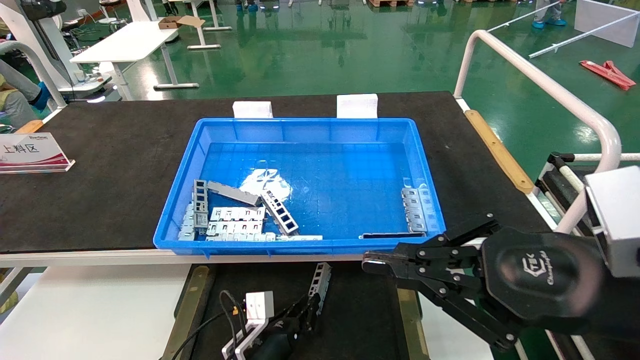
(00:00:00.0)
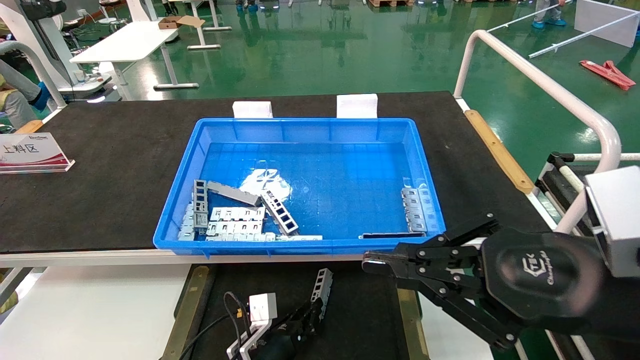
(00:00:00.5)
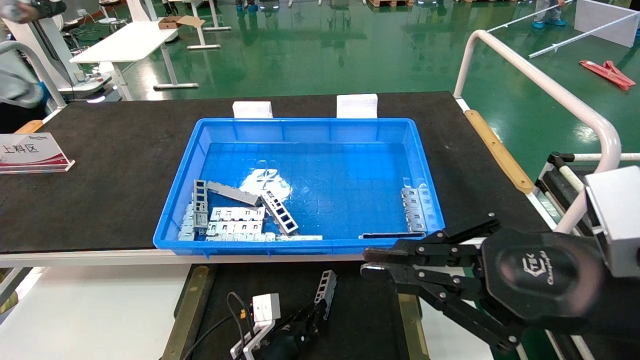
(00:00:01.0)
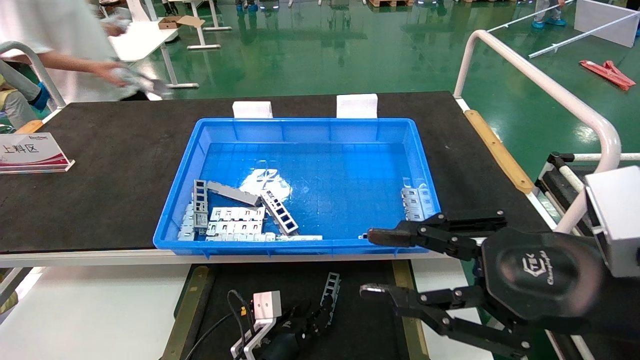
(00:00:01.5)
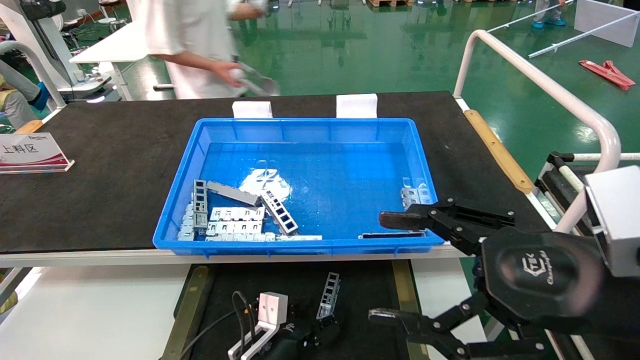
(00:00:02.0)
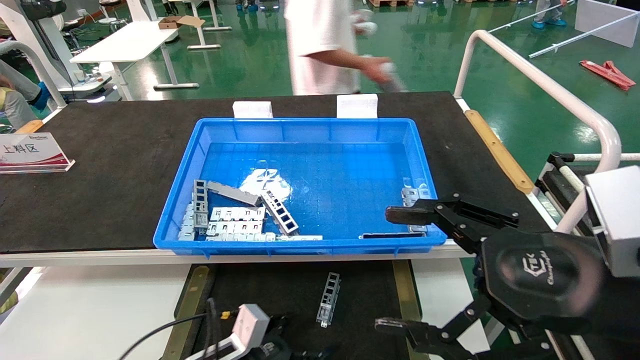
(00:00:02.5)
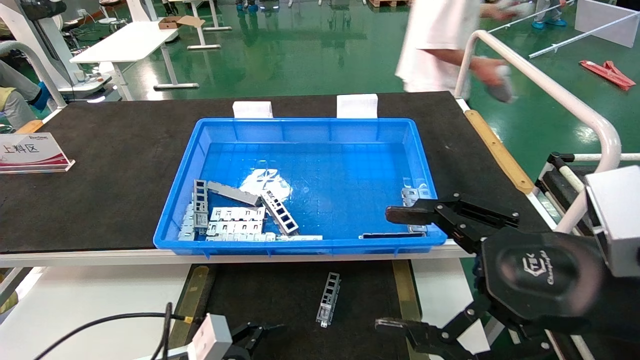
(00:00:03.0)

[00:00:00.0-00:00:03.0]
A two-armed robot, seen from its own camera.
Task of the whole recording: Grasp the part with one hand and place it on the black container.
00:00:00.0 to 00:00:01.5: The grippers stay close to where they were, moving slightly.
00:00:01.5 to 00:00:03.0: The right gripper opens. The left gripper moves to the left, backward and upward, some 20 cm, and opens.
